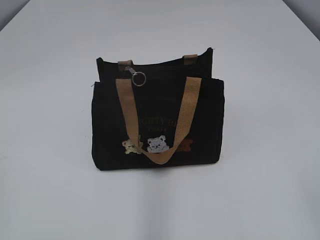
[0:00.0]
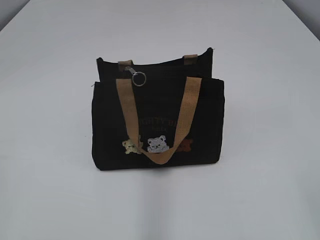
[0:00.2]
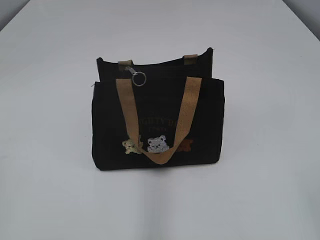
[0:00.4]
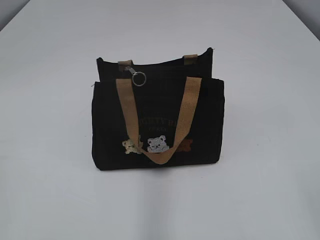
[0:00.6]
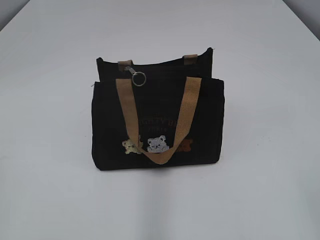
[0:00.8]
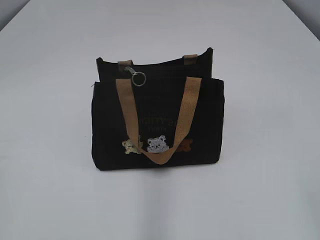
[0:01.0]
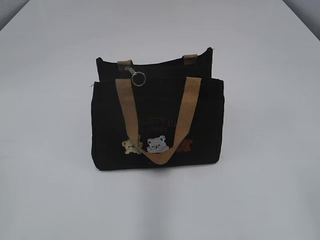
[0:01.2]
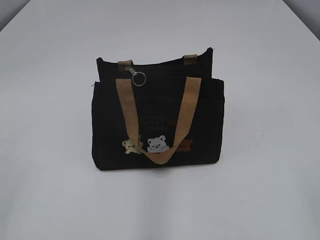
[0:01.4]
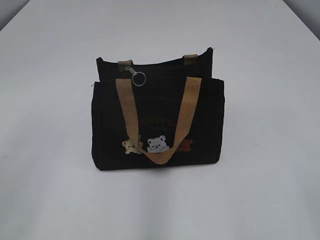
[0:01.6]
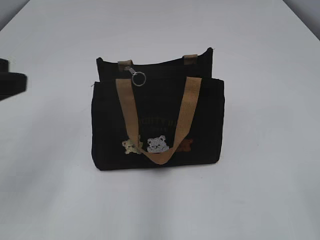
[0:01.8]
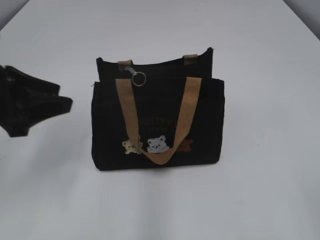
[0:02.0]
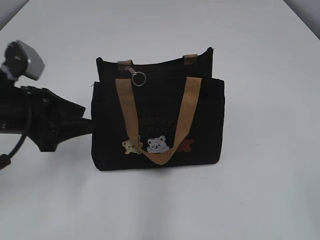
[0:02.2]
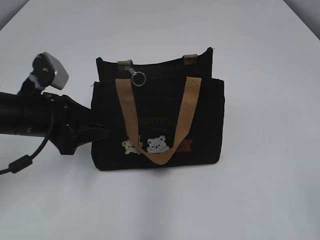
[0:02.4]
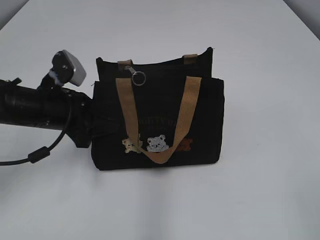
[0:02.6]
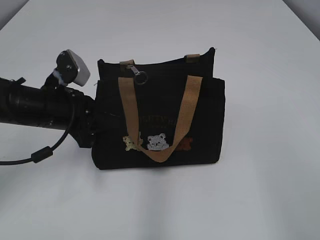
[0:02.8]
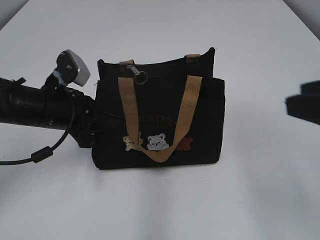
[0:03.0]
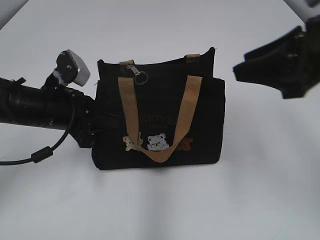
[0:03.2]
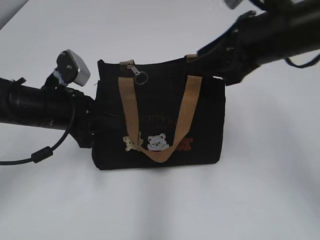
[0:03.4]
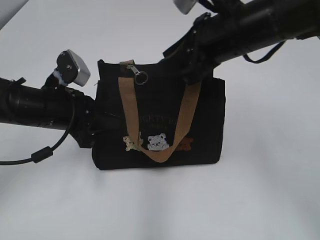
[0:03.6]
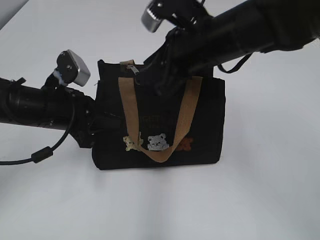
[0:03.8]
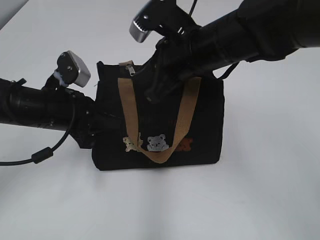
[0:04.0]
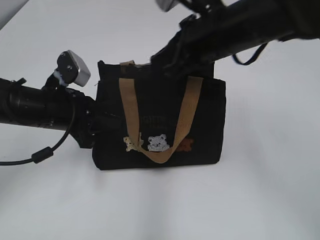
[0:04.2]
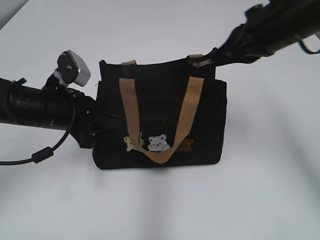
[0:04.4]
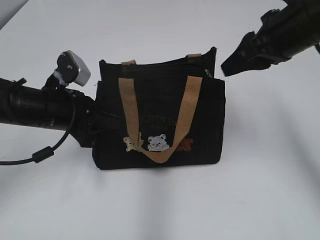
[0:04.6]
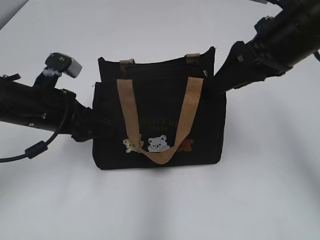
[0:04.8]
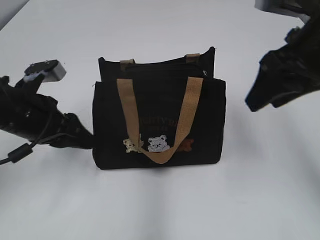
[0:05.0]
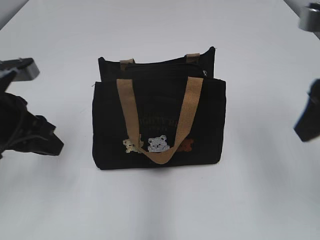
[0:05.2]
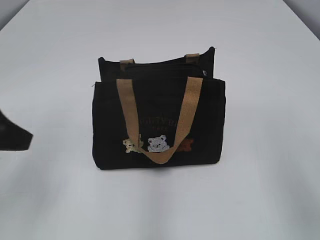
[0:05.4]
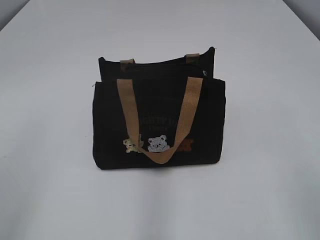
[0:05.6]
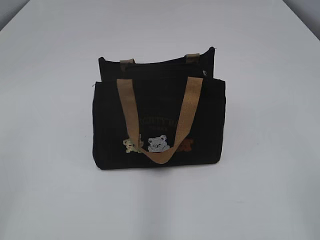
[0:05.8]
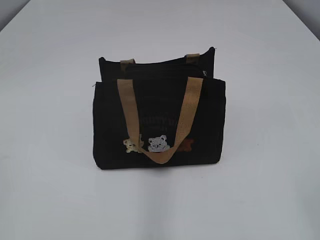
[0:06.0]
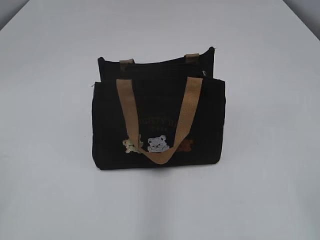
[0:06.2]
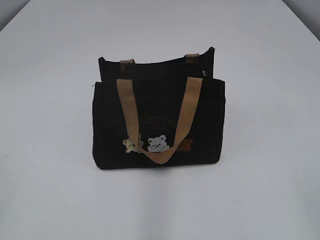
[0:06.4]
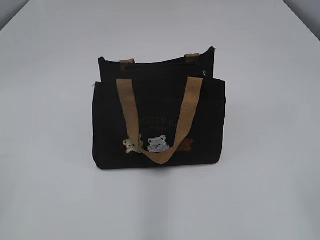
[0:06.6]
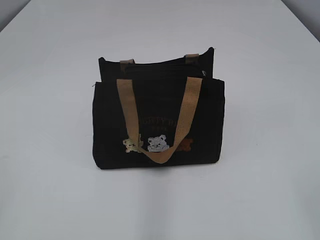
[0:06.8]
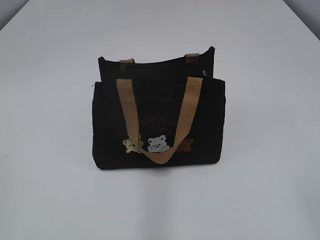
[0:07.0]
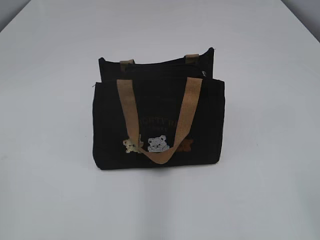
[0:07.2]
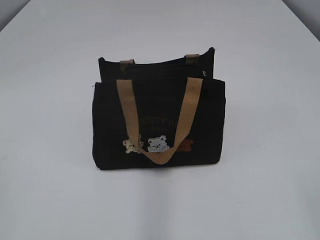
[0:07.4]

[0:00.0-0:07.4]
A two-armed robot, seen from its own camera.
Step, 0:00.0 to 0:04.4: Pull open the zipper with your right hand.
Step, 0:04.6 to 0:05.0: Hold the bag with your left hand.
0:01.4 to 0:03.0: The right gripper is displaced forward by about 15 cm. The left gripper shifts approximately 35 cm forward, downward and to the right, and closes its fingers.
0:03.0 to 0:04.4: The right gripper heads forward, covering some 20 cm, and closes its fingers.
0:04.4 to 0:06.0: The right gripper shifts some 35 cm backward, and opens, while the left gripper is displaced backward, upward and to the left by about 35 cm, and opens its fingers.

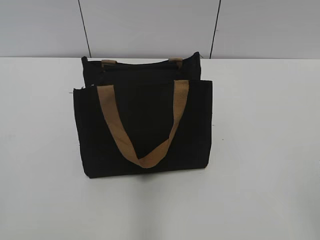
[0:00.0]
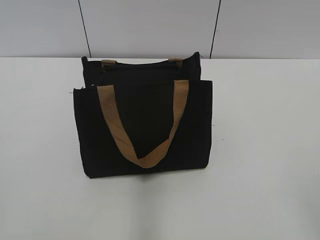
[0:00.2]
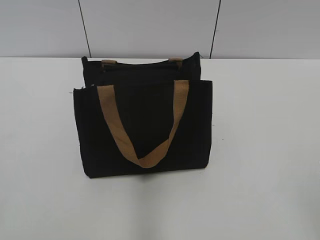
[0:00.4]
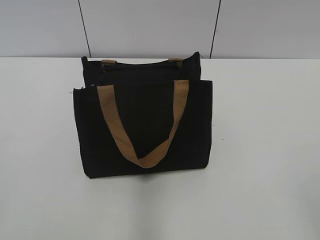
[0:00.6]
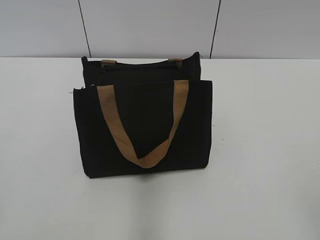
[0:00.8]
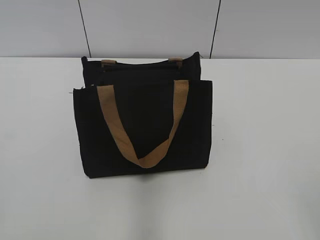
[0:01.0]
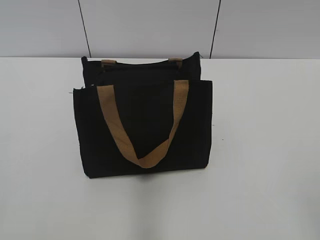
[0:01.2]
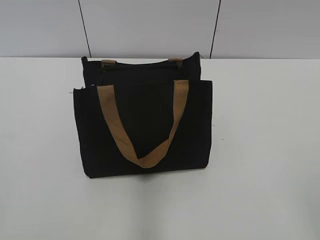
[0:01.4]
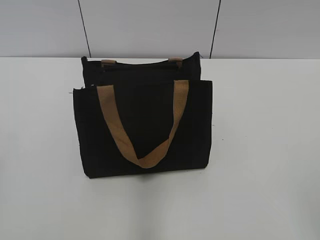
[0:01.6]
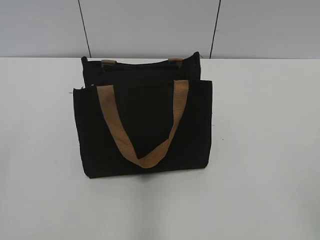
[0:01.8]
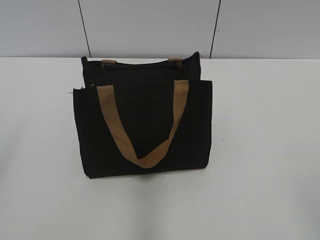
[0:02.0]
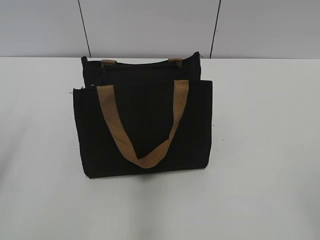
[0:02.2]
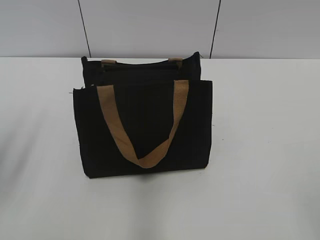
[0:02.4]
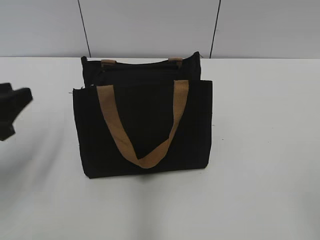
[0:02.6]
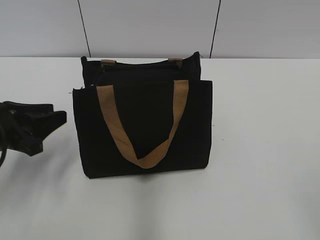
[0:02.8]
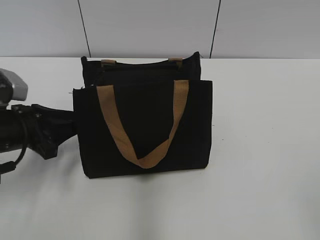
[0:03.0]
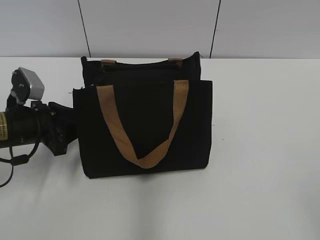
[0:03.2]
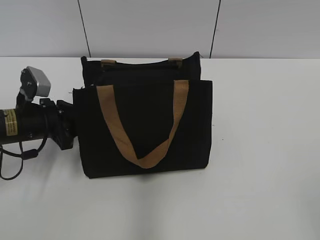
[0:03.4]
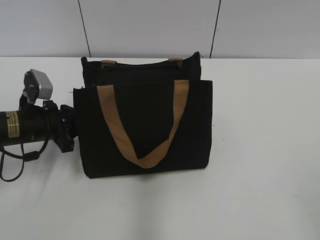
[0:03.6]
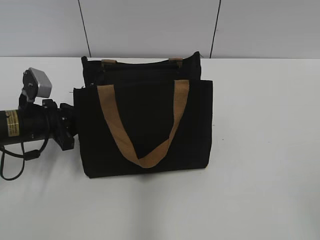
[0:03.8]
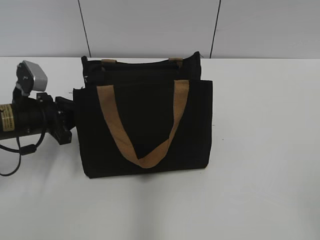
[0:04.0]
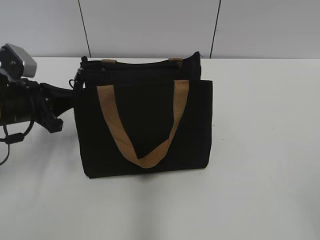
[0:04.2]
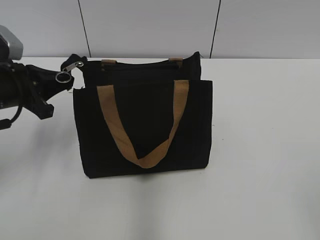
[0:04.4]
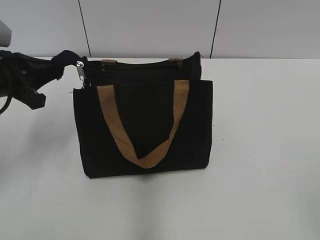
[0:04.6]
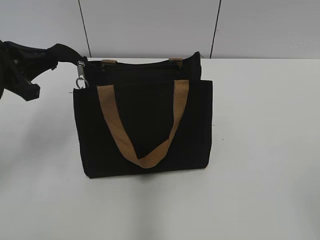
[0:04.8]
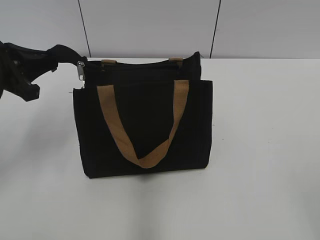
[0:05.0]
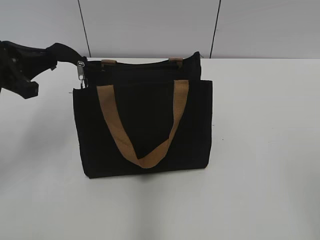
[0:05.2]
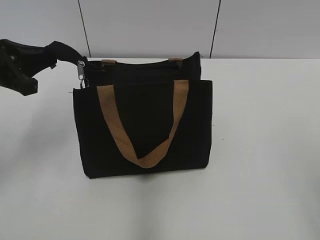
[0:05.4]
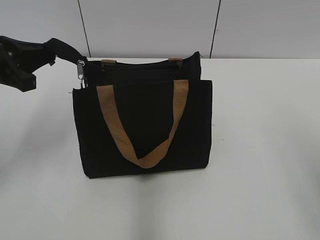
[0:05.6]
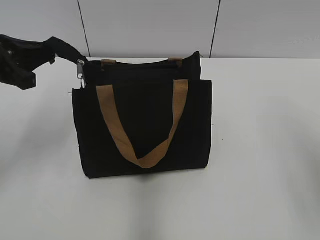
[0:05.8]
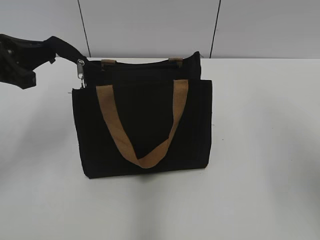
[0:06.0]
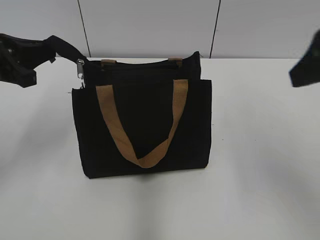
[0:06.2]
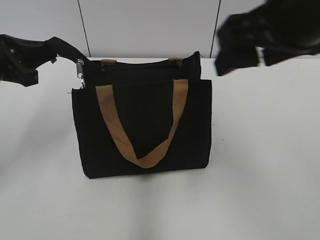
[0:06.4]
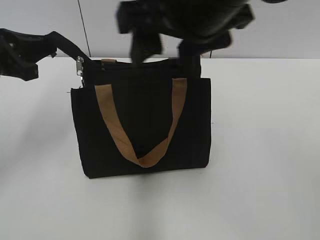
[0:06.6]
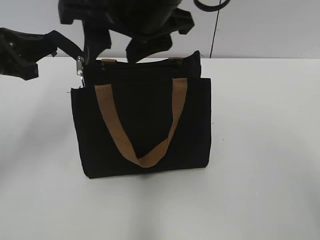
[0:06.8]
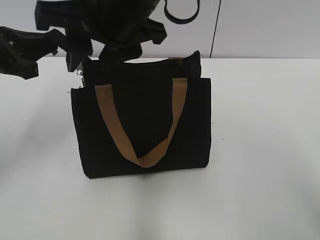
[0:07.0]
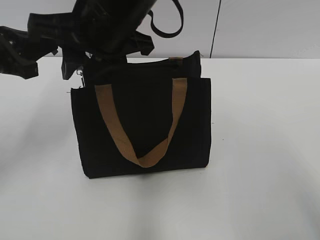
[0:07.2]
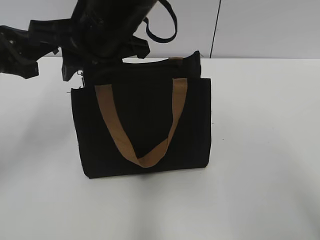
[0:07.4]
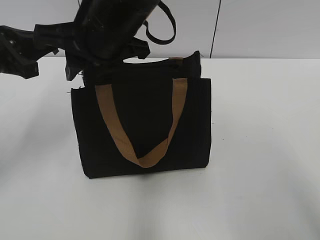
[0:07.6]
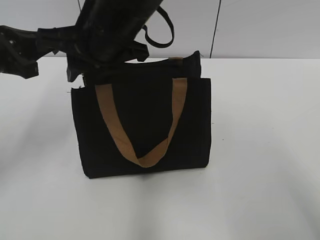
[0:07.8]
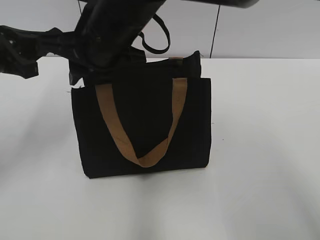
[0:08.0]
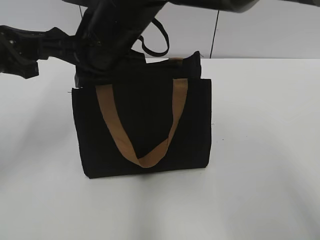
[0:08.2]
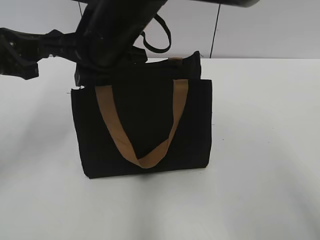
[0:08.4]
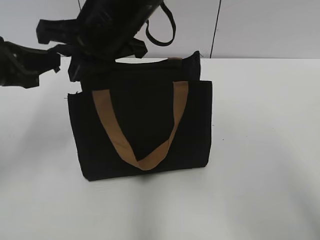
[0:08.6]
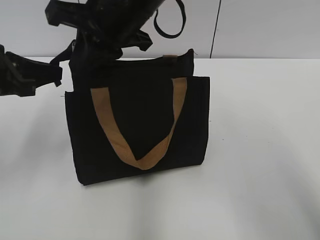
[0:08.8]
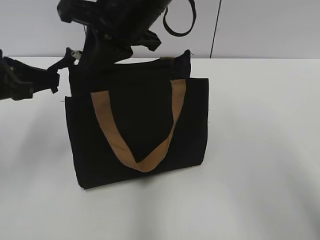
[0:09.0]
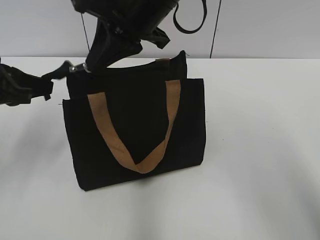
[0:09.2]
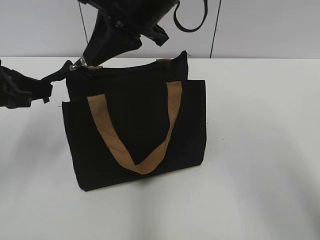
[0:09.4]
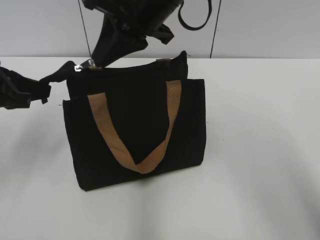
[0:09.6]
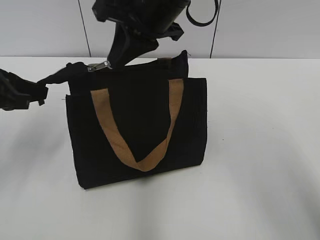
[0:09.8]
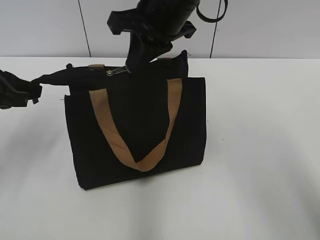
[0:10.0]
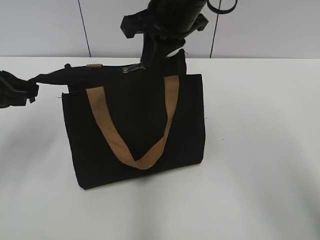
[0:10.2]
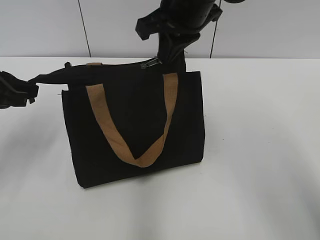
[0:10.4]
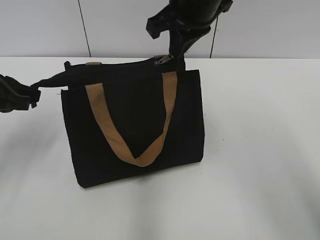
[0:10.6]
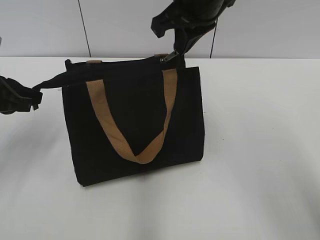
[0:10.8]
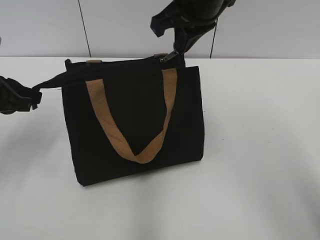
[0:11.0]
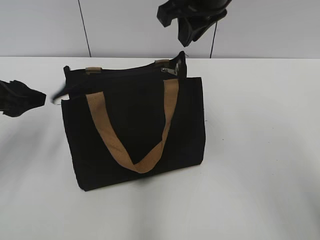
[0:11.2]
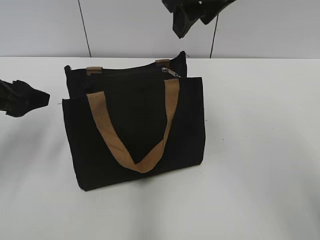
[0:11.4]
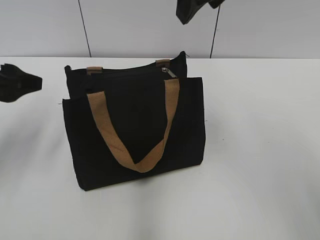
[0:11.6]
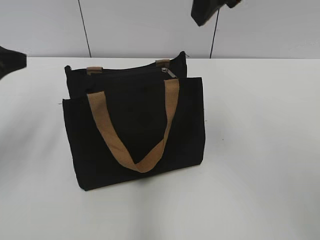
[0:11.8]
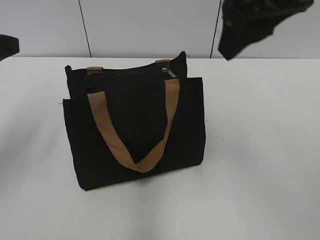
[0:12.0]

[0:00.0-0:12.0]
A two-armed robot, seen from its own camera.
Step, 0:00.0 to 0:11.0: Zip up the bag with your right hand.
0:01.6 to 0:03.0: The left gripper goes approximately 30 cm forward and downward.
0:03.0 to 0:04.4: The left gripper ends up roughly 5 cm from where it was, and closes up.
0:04.4 to 0:06.0: The right gripper moves forward and upward, some 20 cm. Meanwhile the left gripper moves upward, roughly 5 cm.
0:06.0 to 0:07.6: The right gripper heads to the left and forward, covering approximately 35 cm, and closes.
0:07.6 to 0:09.0: The right gripper closes.
0:09.0 to 0:10.4: The right gripper shifts about 5 cm to the right.
0:10.4 to 0:12.0: The left gripper shifts approximately 5 cm upward, and opens its fingers, while the right gripper is displaced backward, to the right and upward by roughly 15 cm, and opens its fingers.

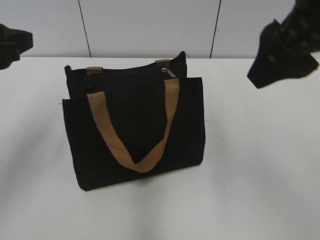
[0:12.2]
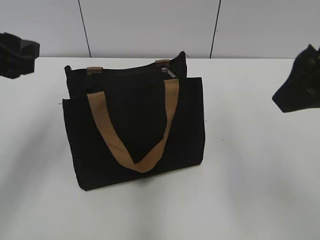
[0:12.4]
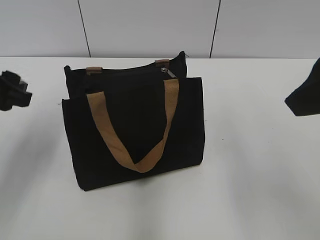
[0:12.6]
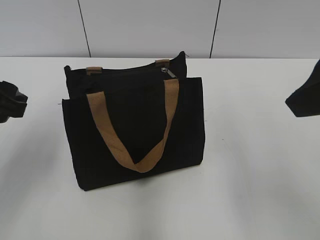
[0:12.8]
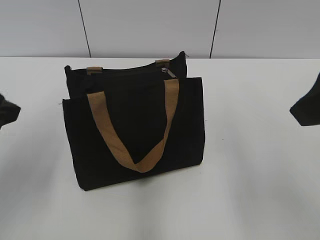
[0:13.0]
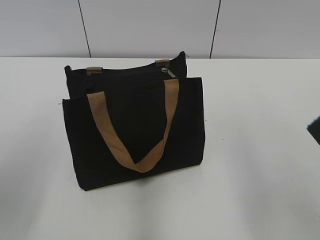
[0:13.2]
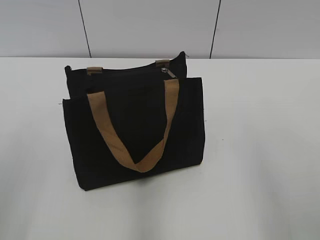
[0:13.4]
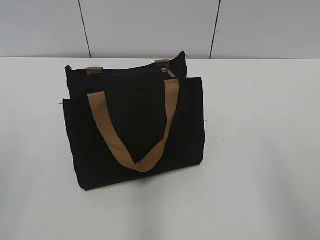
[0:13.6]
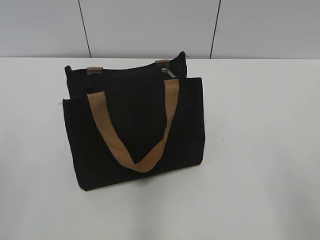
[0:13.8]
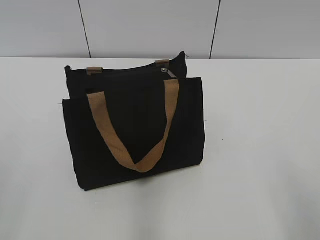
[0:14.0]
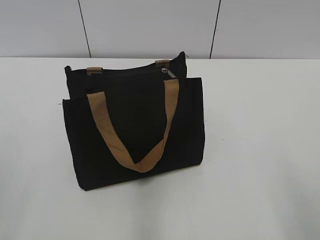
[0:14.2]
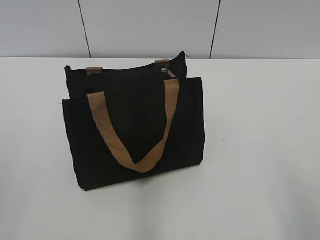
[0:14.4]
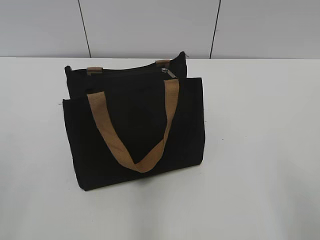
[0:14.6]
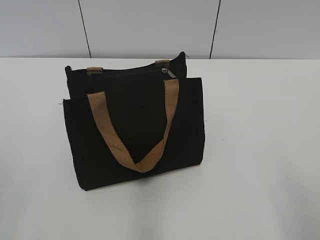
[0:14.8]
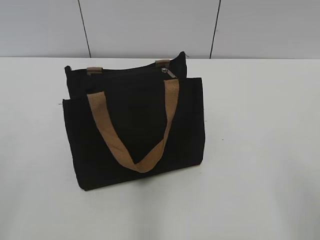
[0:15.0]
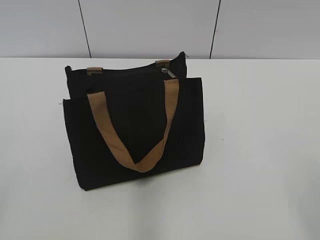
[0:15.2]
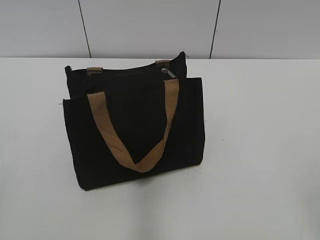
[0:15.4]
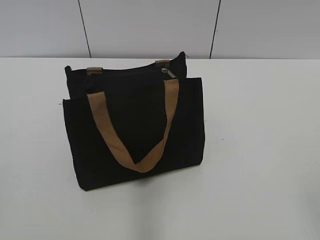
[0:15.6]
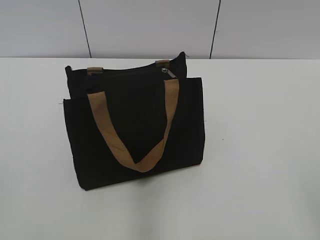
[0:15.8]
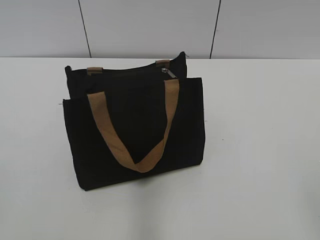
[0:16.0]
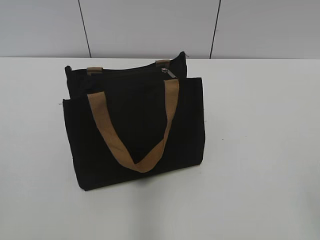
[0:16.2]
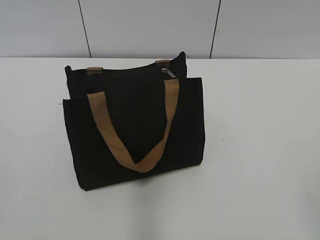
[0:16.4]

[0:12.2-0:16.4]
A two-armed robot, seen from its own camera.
0:12.2 to 0:13.6: The left gripper goes about 15 cm backward, while the right gripper travels backward and to the right by roughly 20 cm.
